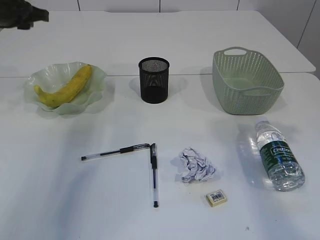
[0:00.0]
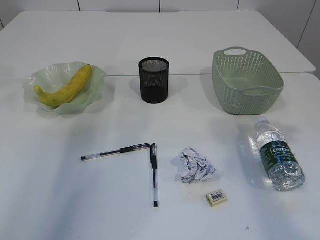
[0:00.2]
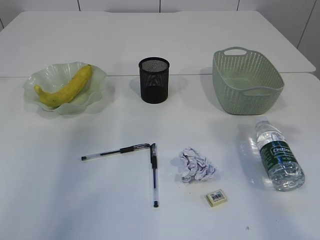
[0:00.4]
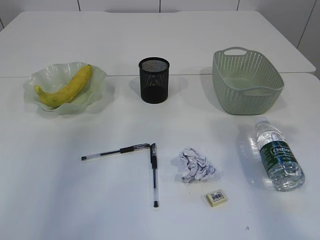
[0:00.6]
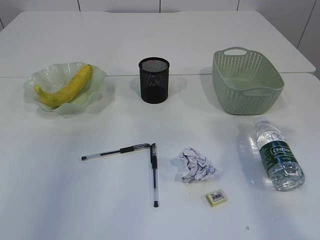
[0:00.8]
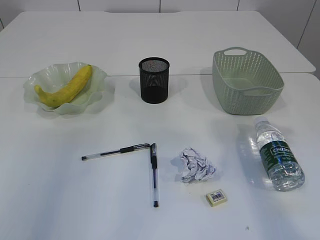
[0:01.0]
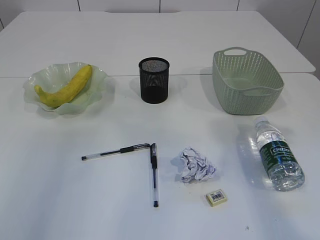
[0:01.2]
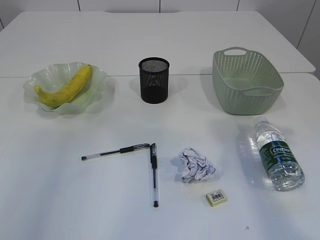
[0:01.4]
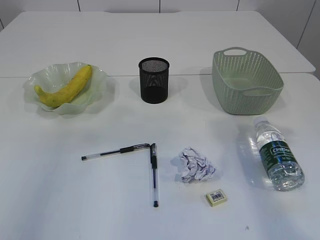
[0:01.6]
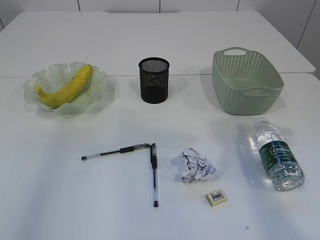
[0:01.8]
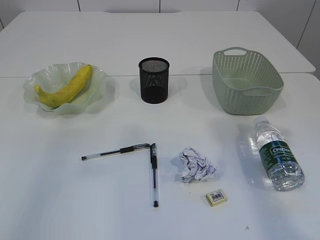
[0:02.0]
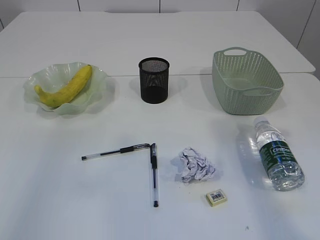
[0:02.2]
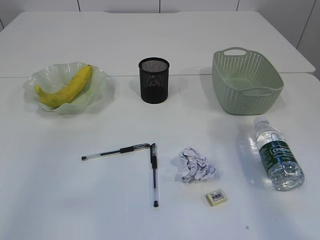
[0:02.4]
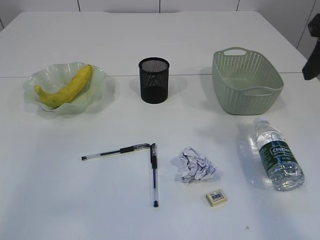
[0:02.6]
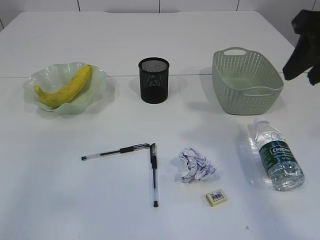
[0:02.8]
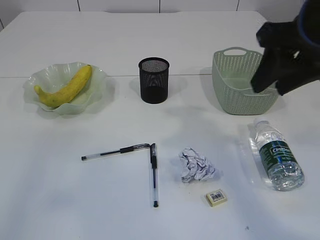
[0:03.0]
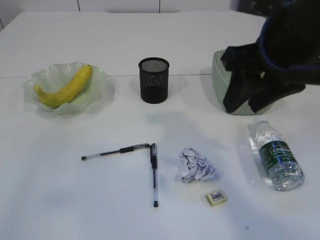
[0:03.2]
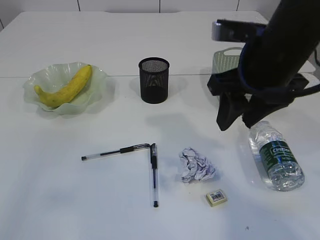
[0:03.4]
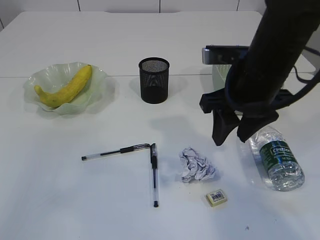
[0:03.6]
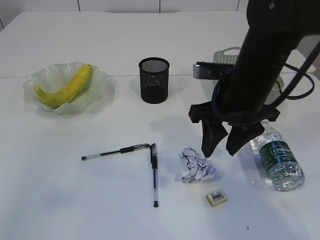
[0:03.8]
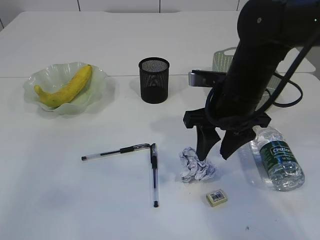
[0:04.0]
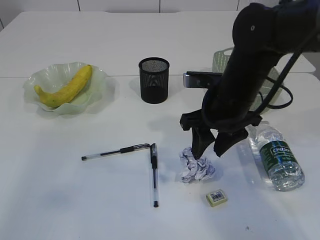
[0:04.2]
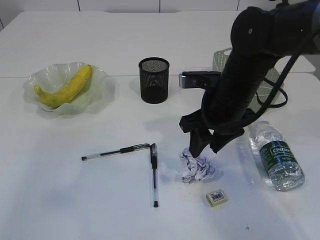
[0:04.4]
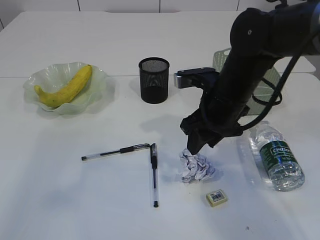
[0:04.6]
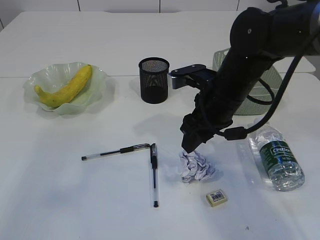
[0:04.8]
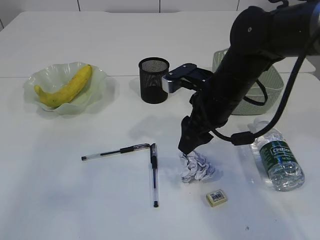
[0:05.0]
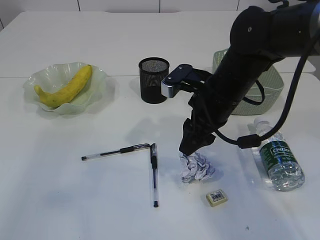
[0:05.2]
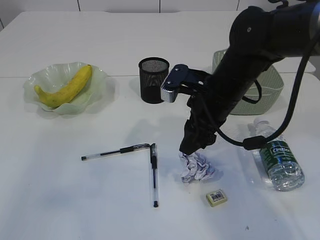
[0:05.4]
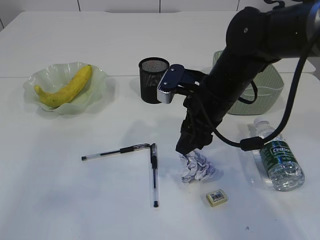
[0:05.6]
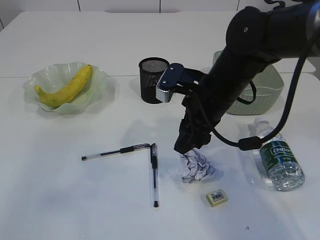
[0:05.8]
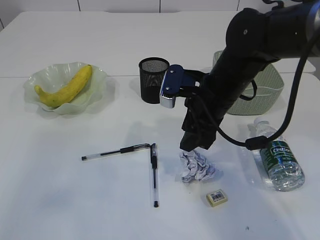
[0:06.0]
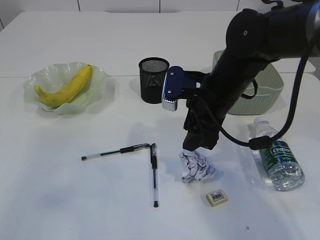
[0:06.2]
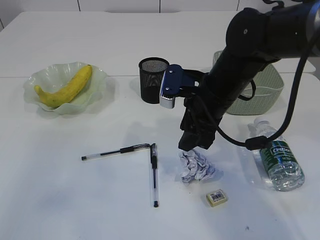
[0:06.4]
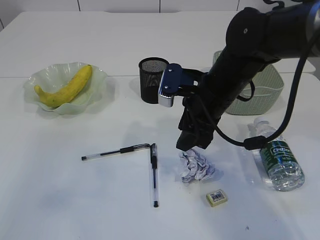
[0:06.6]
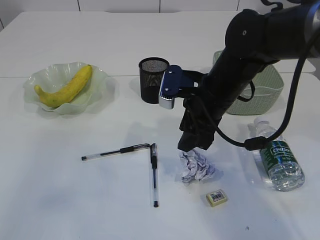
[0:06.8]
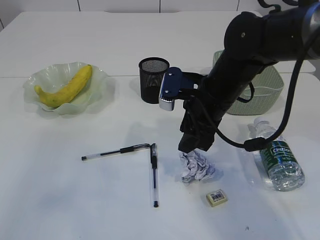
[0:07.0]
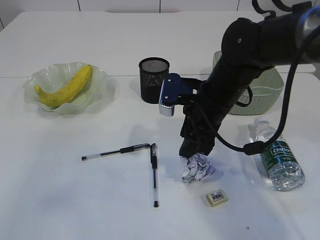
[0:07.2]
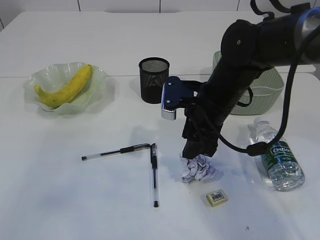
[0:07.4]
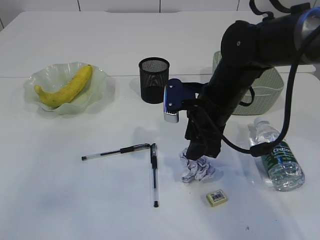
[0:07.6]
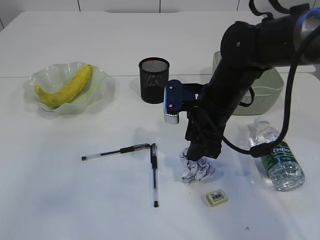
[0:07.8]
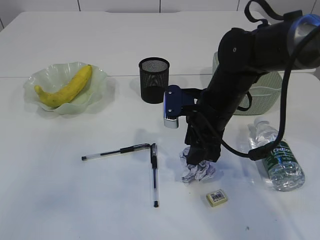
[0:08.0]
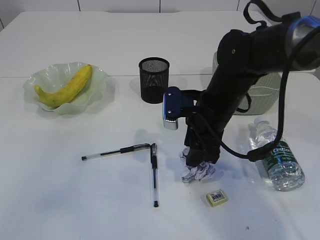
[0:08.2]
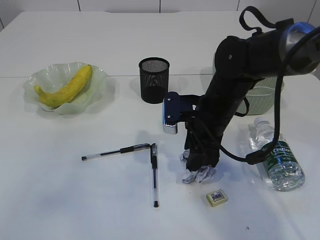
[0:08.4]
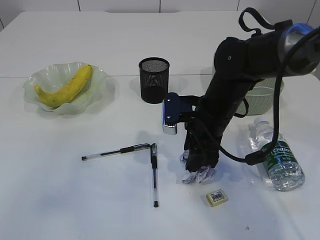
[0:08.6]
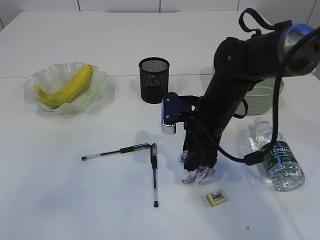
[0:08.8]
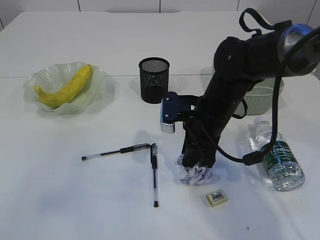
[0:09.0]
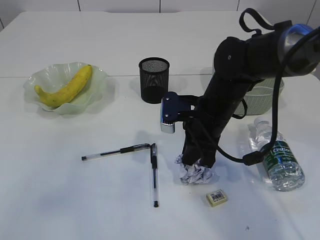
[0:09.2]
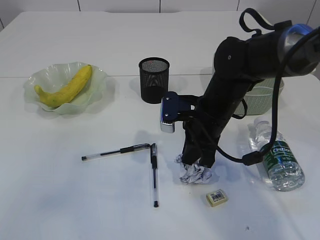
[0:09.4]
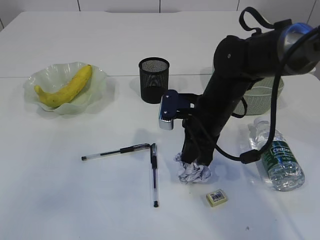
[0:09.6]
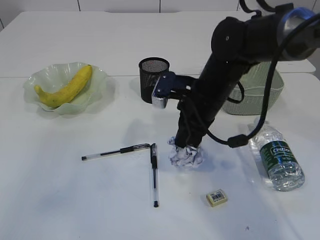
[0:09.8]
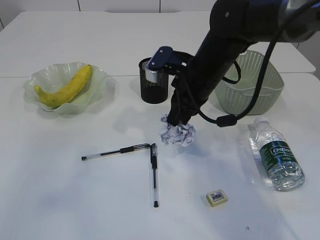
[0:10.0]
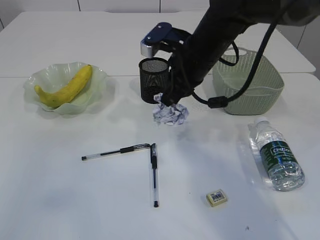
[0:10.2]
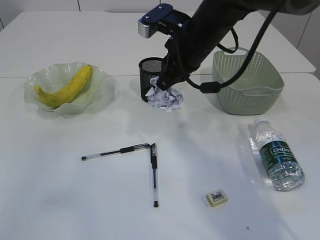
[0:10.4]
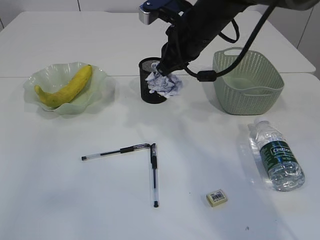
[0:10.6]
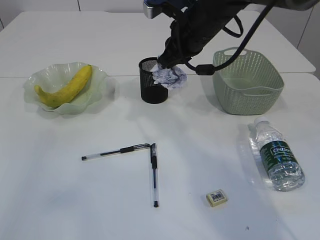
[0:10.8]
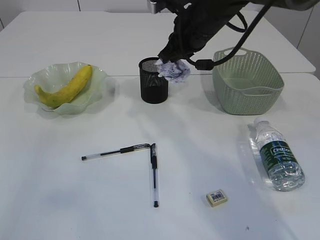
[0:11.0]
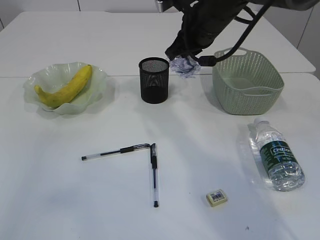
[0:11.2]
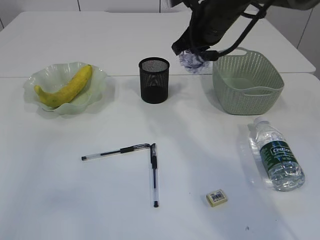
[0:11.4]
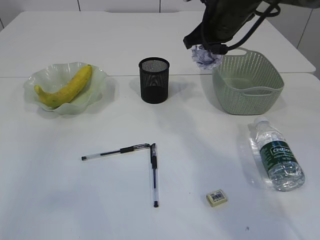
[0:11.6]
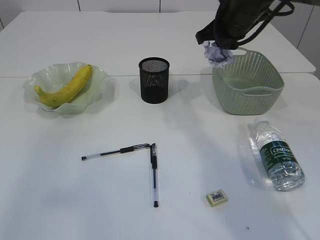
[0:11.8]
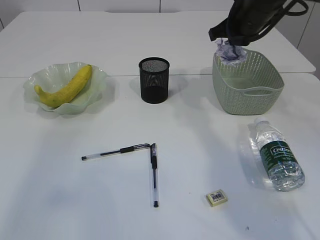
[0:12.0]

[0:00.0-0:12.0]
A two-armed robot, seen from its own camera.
Step, 0:00.0 to 0:09.8: Pick up the waste paper.
0:00.0 to 0:01.6: The left gripper shifts some 40 cm backward and upward, and closes its fingers.
0:01.6 to 0:03.0: The right gripper heads to the left, covering roughly 10 cm.
0:03.0 to 0:04.4: The right gripper shifts approximately 15 cm downward and to the left.
0:06.0 to 0:07.6: There are only small adjustments of the grippers.
0:07.6 to 0:09.0: The right gripper closes its fingers.
0:09.0 to 0:10.4: The right gripper travels upward and forward by roughly 10 cm.
0:10.4 to 0:12.0: The right gripper moves to the right and forward, roughly 15 cm.

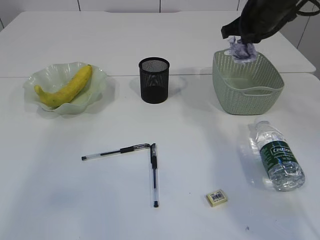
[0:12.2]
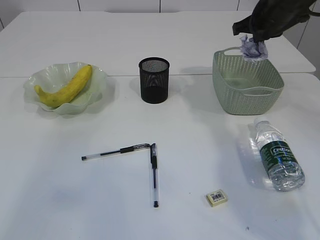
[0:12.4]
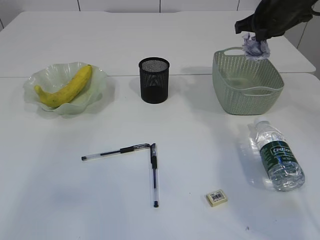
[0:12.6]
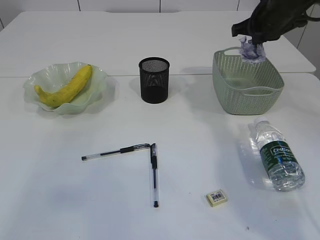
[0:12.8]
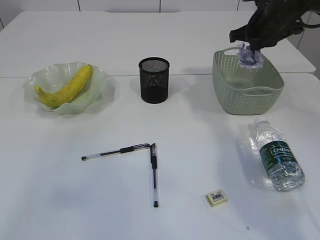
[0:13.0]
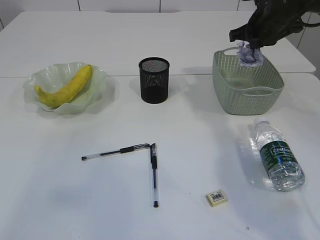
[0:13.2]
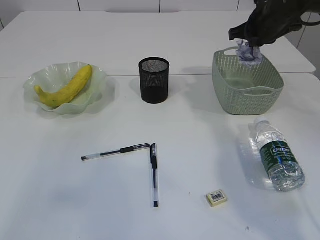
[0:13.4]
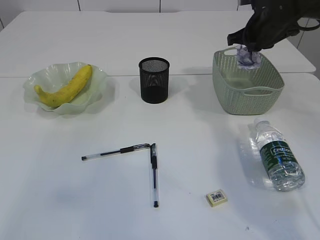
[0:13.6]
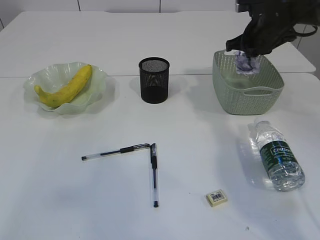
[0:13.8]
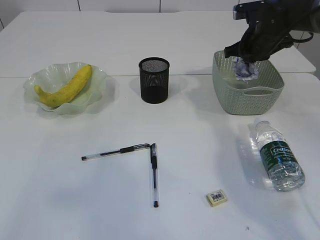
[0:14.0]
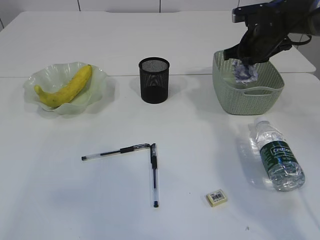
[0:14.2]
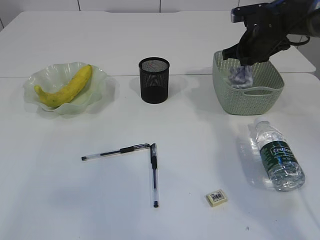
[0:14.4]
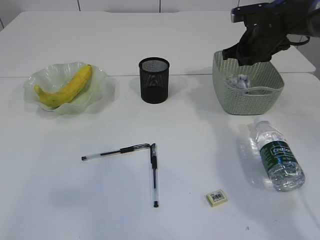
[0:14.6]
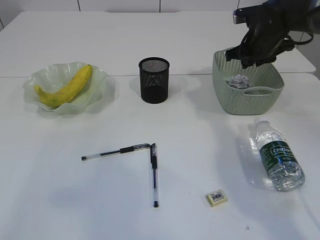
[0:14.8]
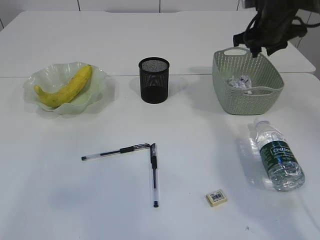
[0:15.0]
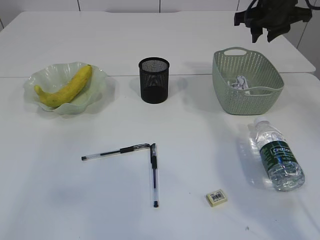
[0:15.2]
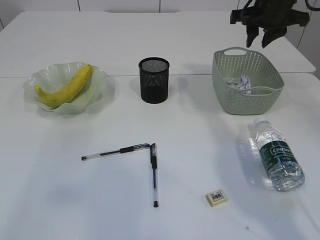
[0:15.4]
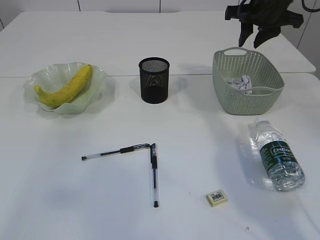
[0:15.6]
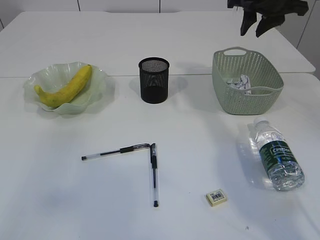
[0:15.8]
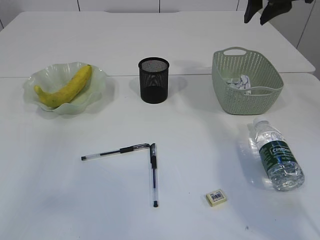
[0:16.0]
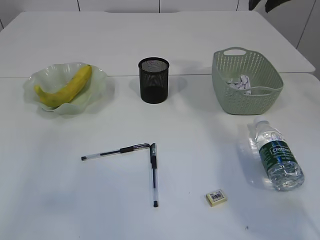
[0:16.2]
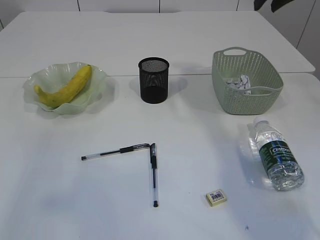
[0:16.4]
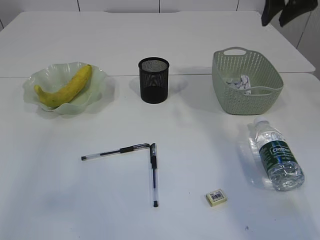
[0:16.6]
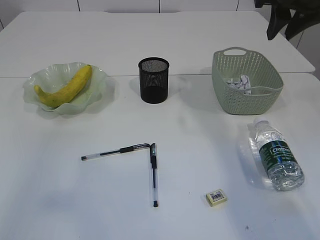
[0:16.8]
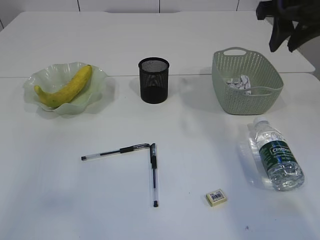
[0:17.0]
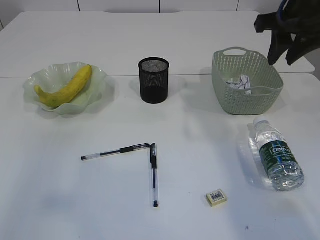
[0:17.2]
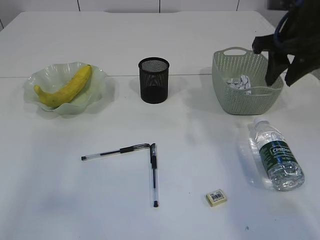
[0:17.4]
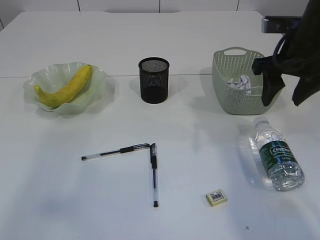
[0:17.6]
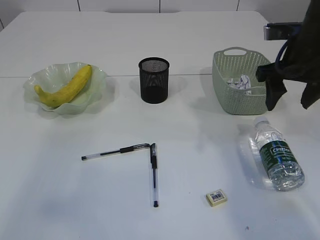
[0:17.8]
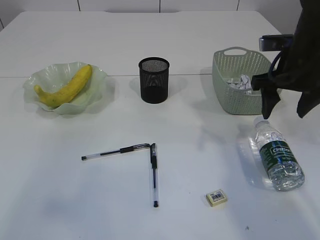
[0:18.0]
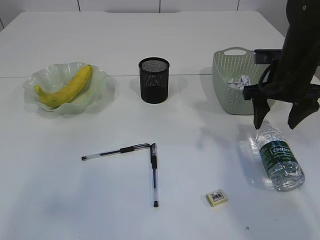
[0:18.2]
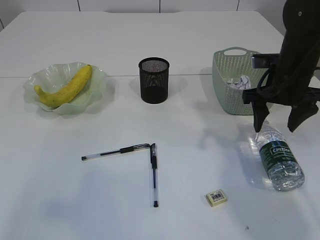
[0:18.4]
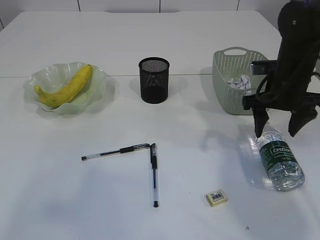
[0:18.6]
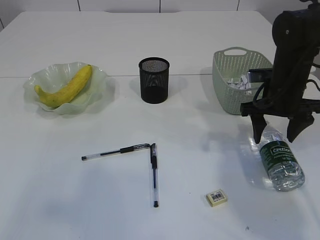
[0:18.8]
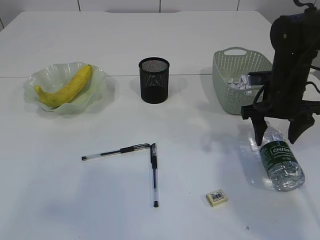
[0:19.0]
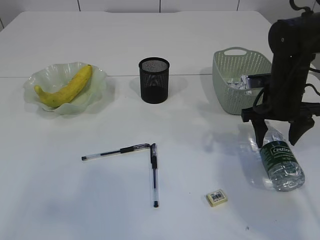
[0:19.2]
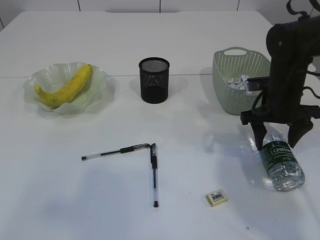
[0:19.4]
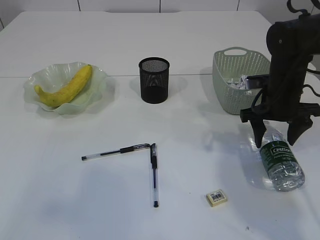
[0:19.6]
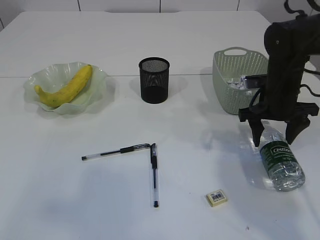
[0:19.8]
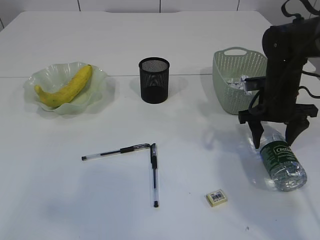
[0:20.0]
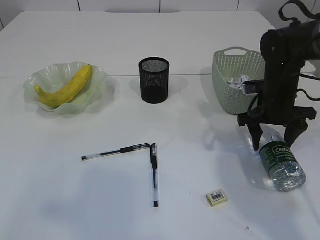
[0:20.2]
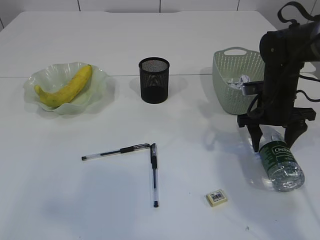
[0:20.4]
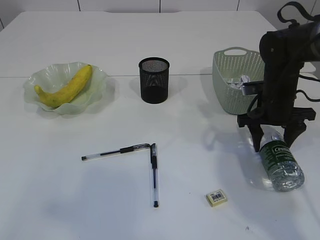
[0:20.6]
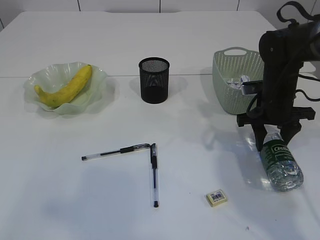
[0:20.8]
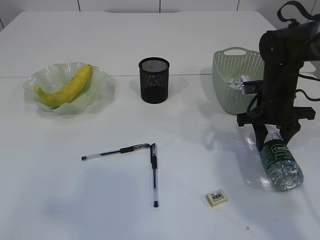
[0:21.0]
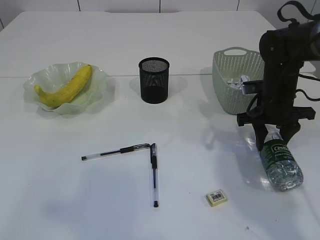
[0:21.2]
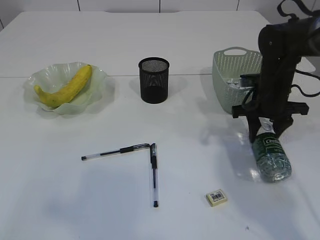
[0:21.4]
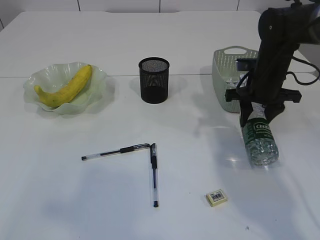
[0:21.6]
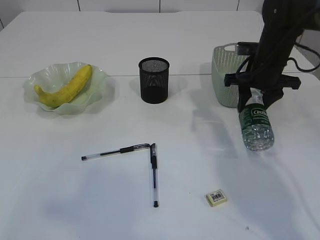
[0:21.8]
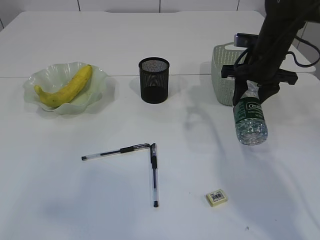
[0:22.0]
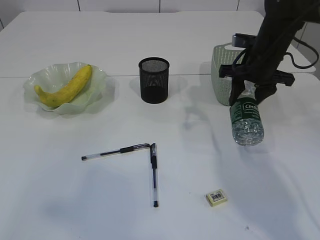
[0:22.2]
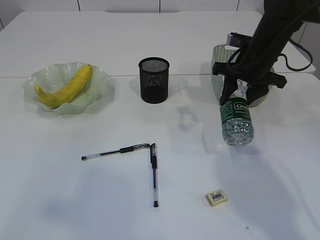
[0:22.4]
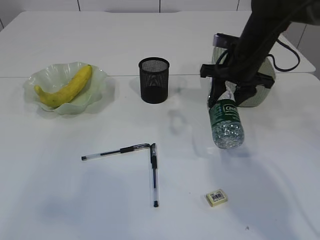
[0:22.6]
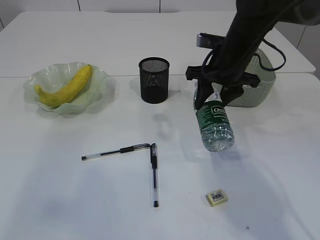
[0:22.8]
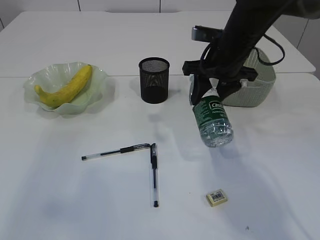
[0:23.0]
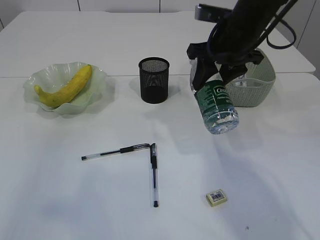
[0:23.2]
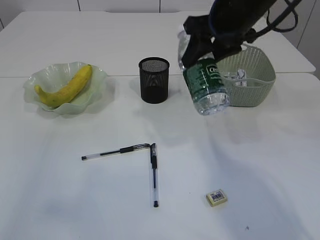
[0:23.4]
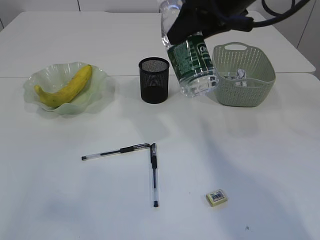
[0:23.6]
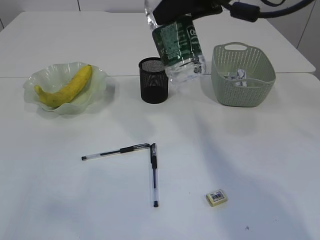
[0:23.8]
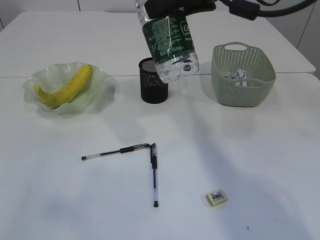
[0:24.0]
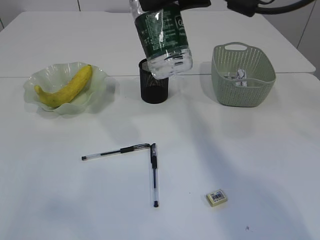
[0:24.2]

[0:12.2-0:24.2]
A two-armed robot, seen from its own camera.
Step, 0:12.2 to 0:14.8: Place the waste paper in the basket.
Step, 0:15.0 to 0:21.8: Pick up the bottle with the right arm.
0:12.2 to 0:13.8: The right gripper moves roughly 5 cm.
0:13.8 to 0:15.2: The right gripper travels upward by about 5 cm, and opens up.
0:15.2 to 0:16.6: The right gripper heads upward and backward, covering approximately 10 cm.
0:16.6 to 0:18.2: The right gripper heads downward, covering some 15 cm, and opens.
0:18.2 to 0:19.8: The right gripper shifts about 5 cm downward.
0:19.8 to 0:21.2: The right gripper closes up.
0:21.2 to 0:22.6: The right gripper heads upward and to the left, covering about 10 cm.
0:22.6 to 0:24.2: The right gripper shifts roughly 20 cm upward, backward and to the left.
